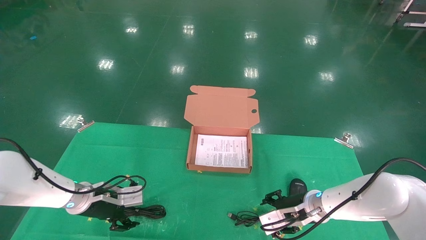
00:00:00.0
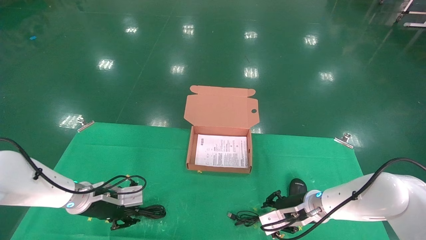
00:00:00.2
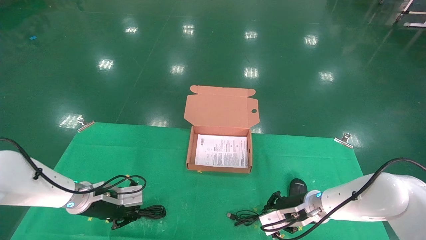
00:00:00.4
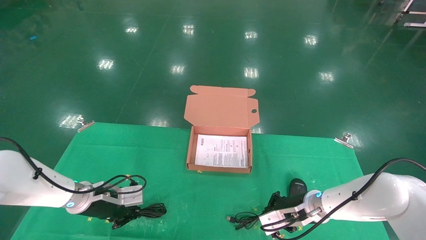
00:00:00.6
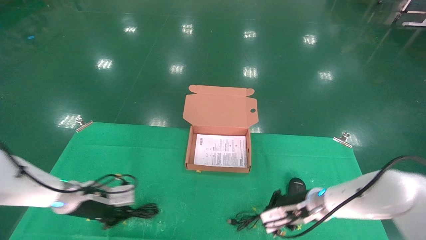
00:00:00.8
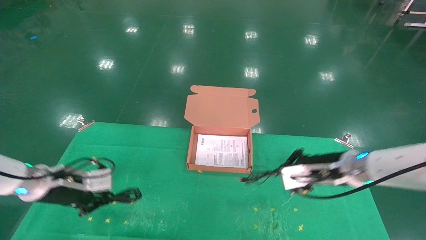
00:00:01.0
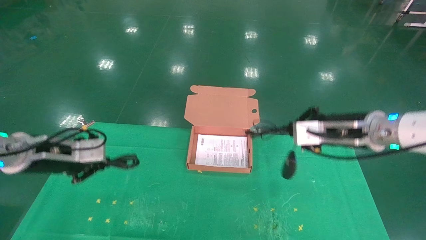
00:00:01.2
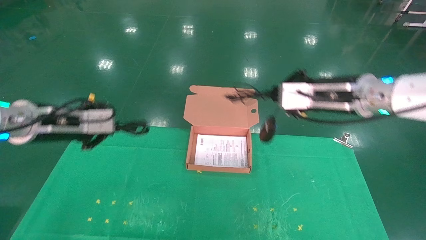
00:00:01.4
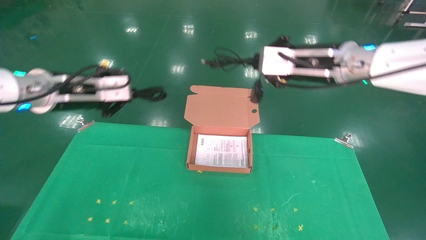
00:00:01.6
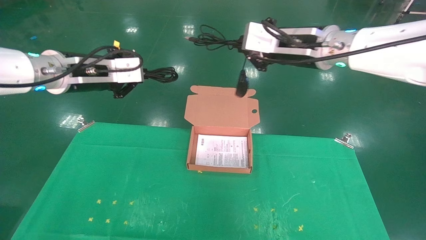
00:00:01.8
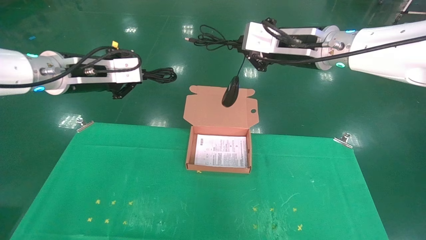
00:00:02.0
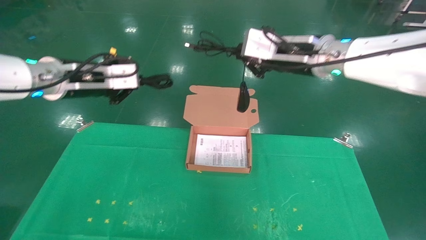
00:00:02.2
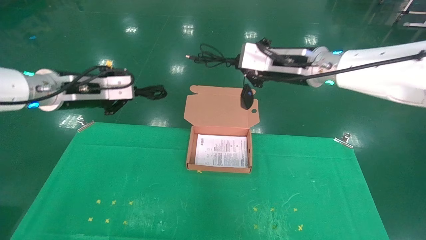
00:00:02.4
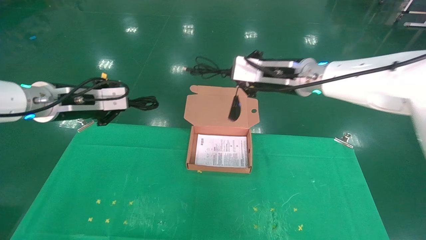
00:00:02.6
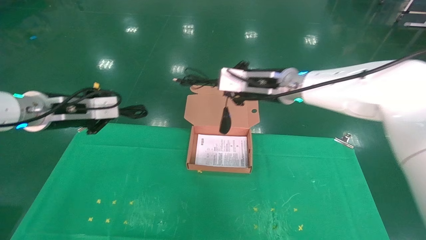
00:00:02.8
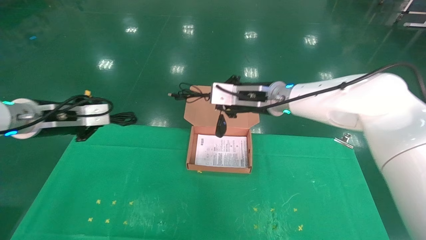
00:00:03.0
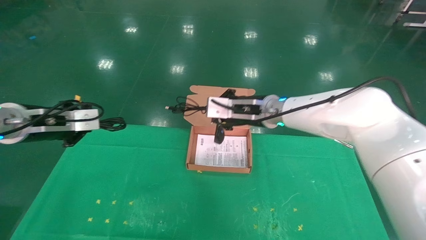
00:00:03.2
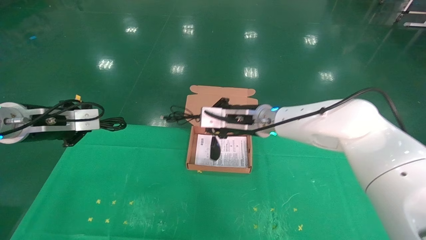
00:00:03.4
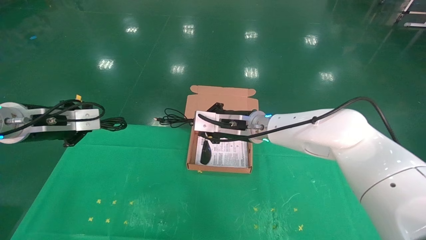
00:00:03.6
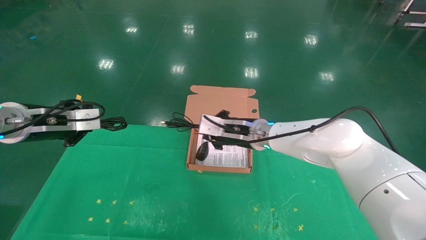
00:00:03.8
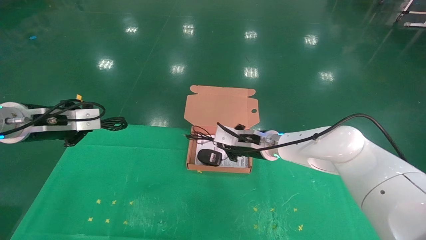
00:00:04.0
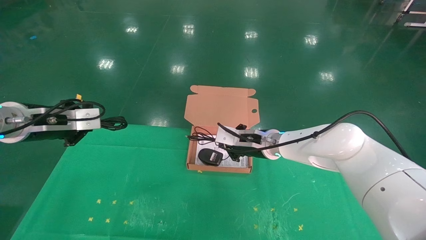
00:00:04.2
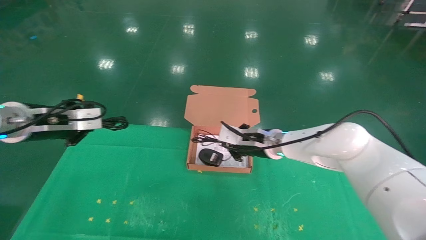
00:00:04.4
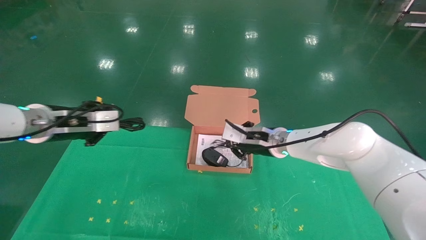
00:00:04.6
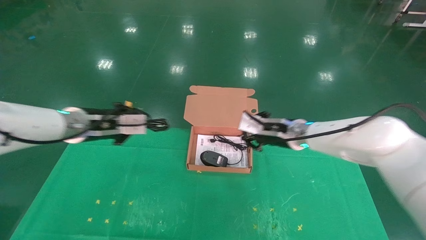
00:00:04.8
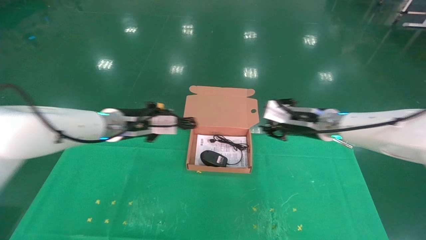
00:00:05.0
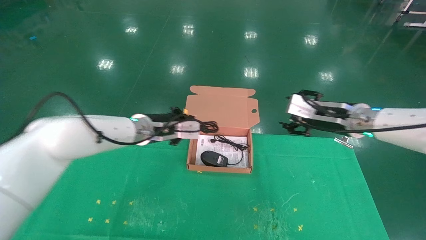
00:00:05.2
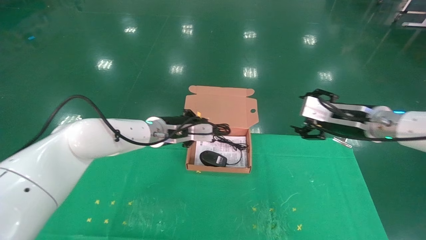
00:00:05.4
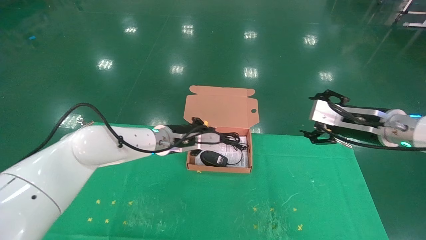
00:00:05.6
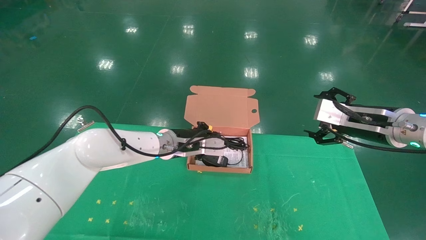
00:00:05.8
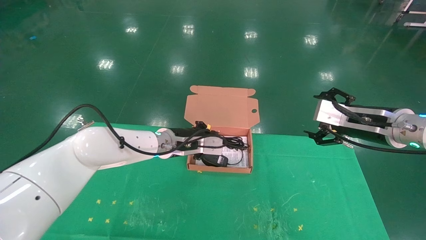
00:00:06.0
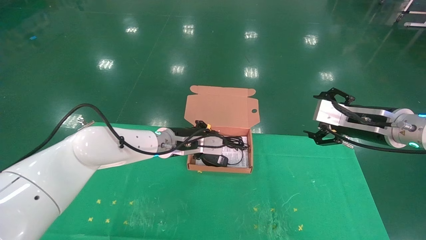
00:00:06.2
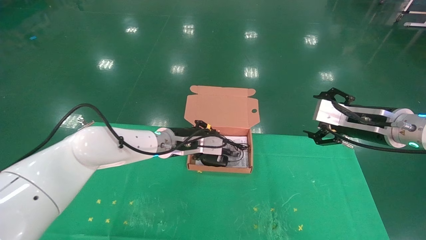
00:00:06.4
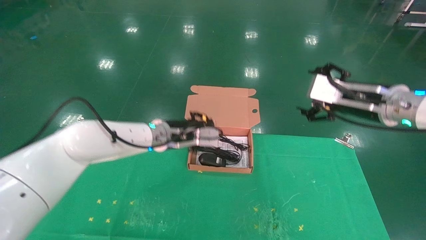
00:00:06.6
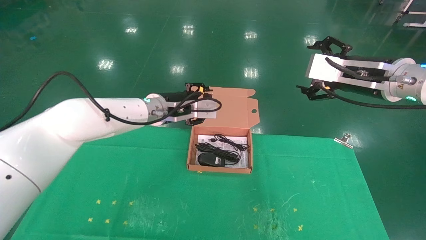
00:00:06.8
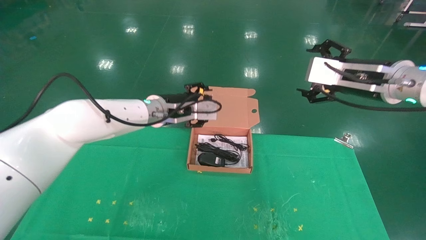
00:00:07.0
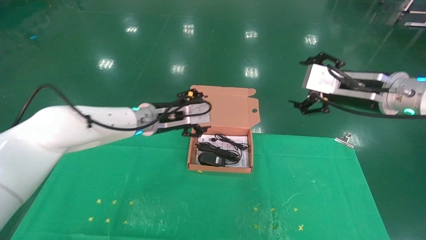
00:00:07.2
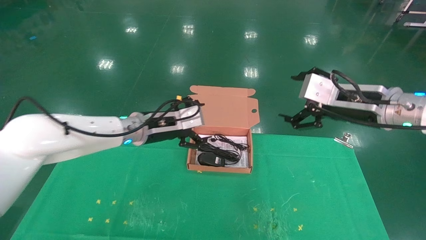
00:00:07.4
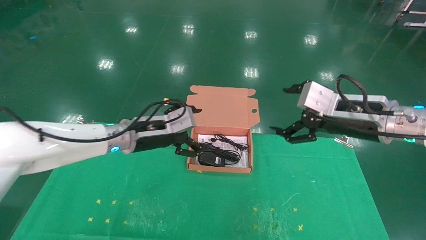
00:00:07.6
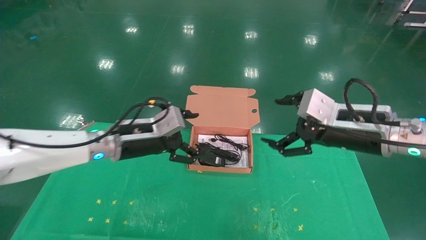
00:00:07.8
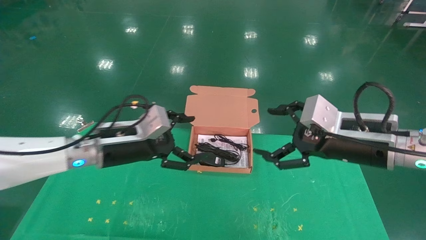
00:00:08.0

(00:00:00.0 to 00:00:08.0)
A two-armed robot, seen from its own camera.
Task of the whole recording: grasp data cable left put into box grasp mouse right put into box.
Step, 00:00:01.2 - 00:00:06.4: Place the mouse and power cord into the box.
00:00:00.0 - 00:00:01.6: Both grippers move upward, approximately 30 cm. The left gripper closes, while the right gripper closes.
00:00:01.6 - 00:00:03.2: The right gripper heads to the left, downward and forward, covering roughly 15 cm, while the left gripper travels to the left by approximately 5 cm.
00:00:03.2 - 00:00:04.8: The right gripper is displaced to the right by some 15 cm; the left gripper is displaced to the right and forward by some 15 cm.
00:00:04.8 - 00:00:06.4: The left gripper travels to the right by about 10 cm. Meanwhile the right gripper moves to the right, backward and upward, roughly 15 cm, and opens its fingers.
00:00:06.4 - 00:00:08.0: The right gripper goes about 10 cm backward and to the left. Meanwhile the left gripper moves backward and to the left, roughly 15 cm, and opens.
